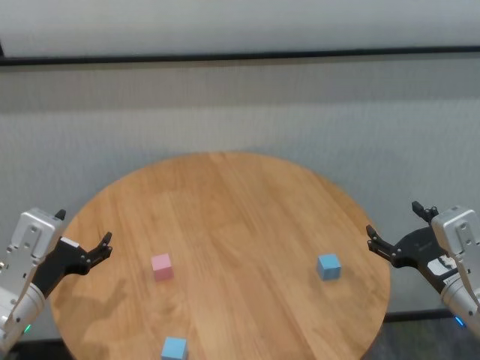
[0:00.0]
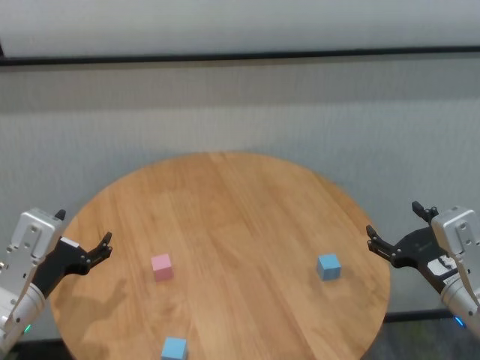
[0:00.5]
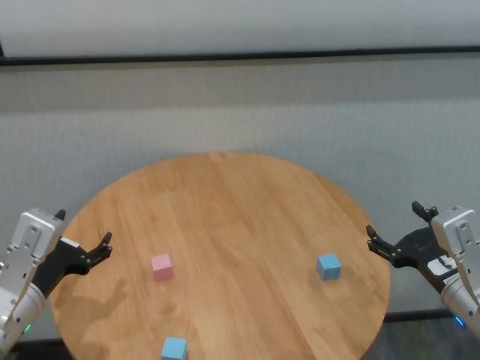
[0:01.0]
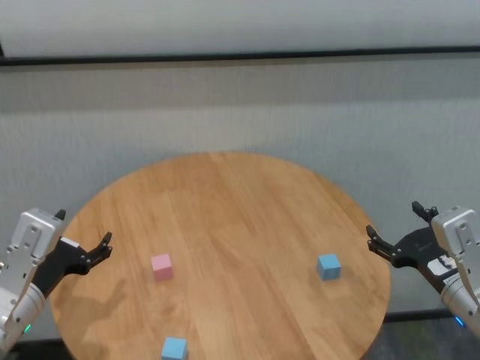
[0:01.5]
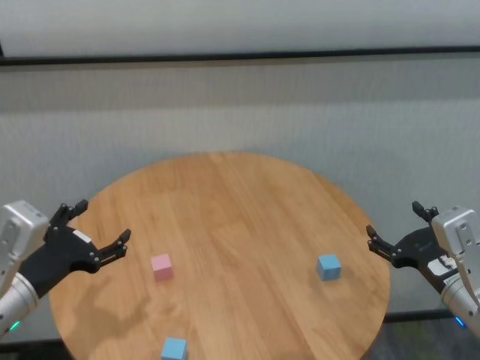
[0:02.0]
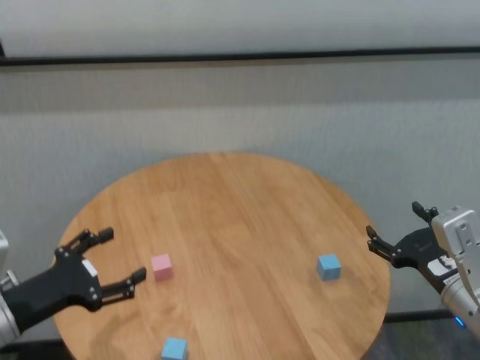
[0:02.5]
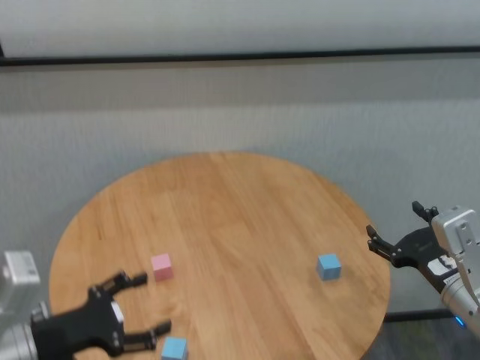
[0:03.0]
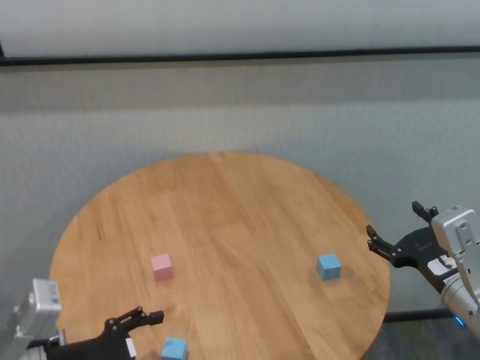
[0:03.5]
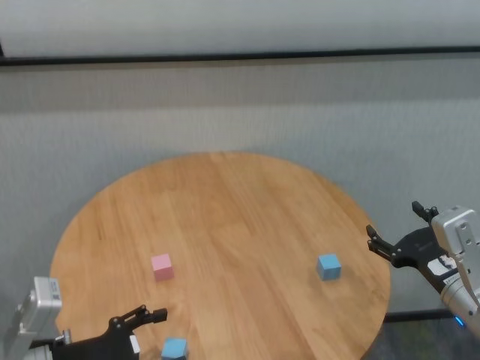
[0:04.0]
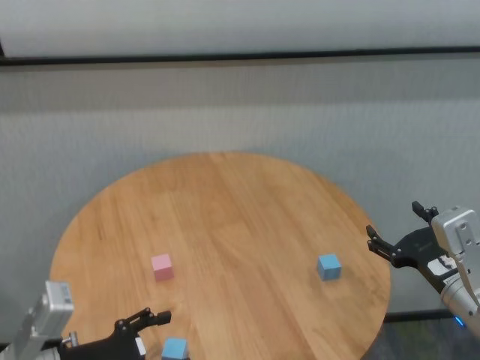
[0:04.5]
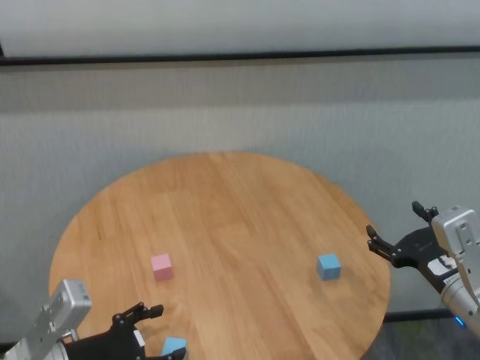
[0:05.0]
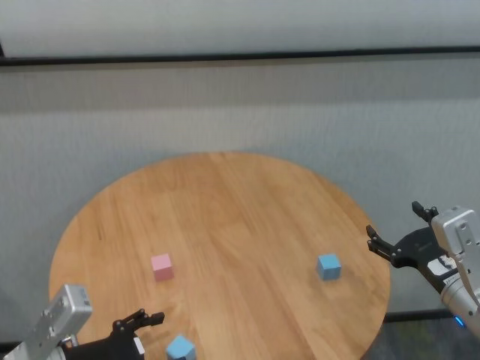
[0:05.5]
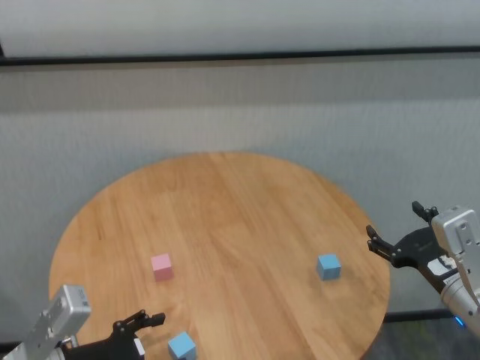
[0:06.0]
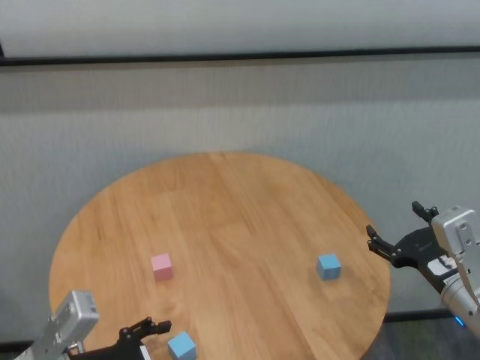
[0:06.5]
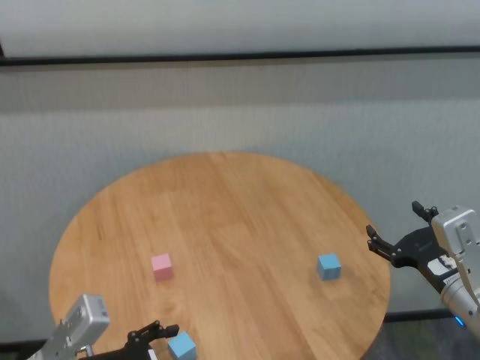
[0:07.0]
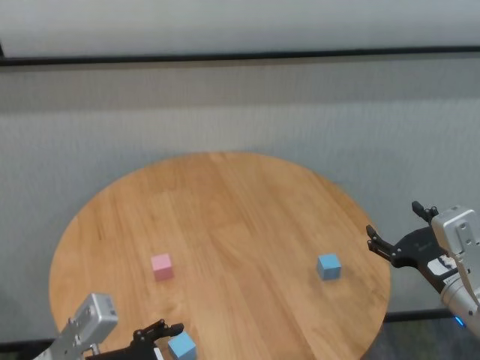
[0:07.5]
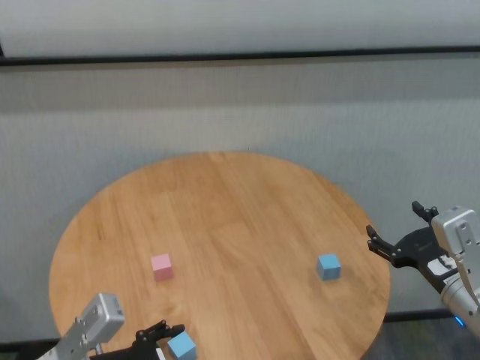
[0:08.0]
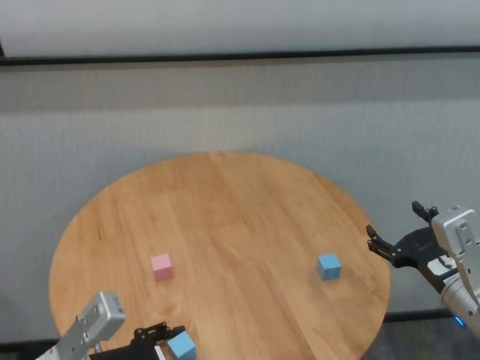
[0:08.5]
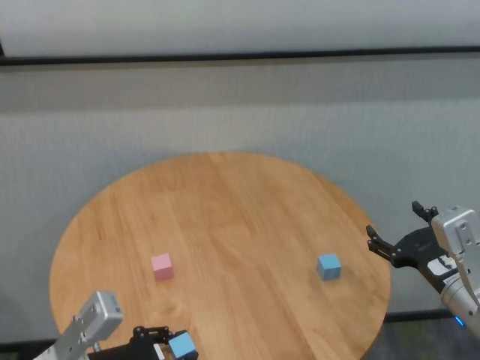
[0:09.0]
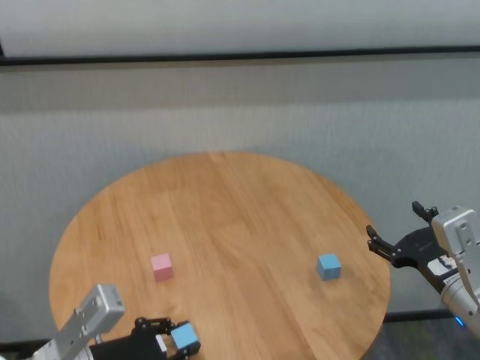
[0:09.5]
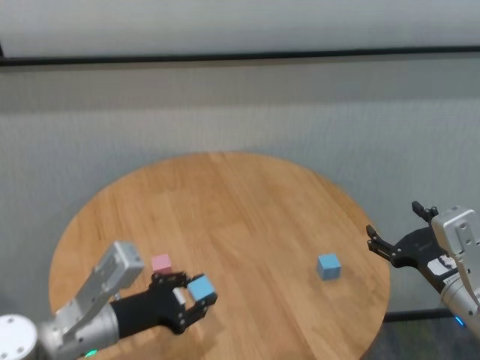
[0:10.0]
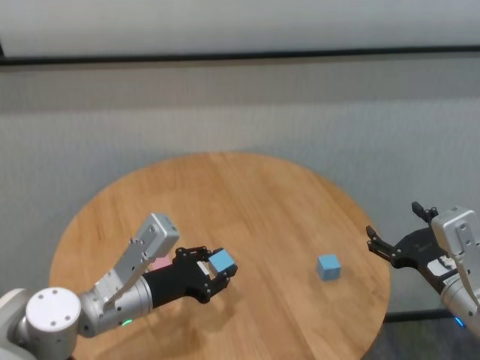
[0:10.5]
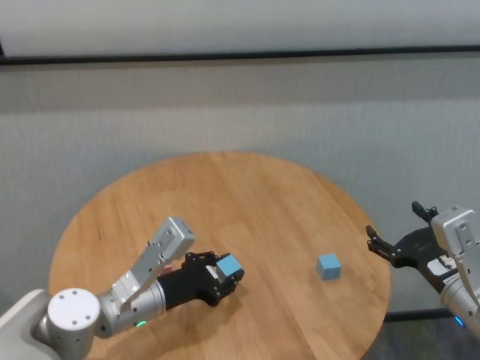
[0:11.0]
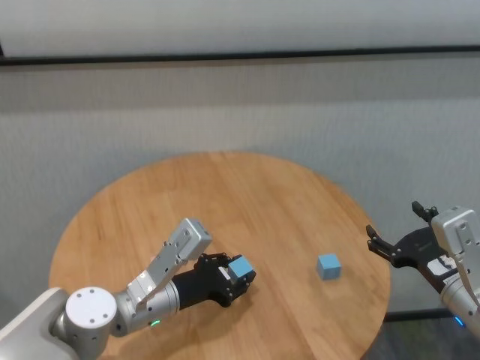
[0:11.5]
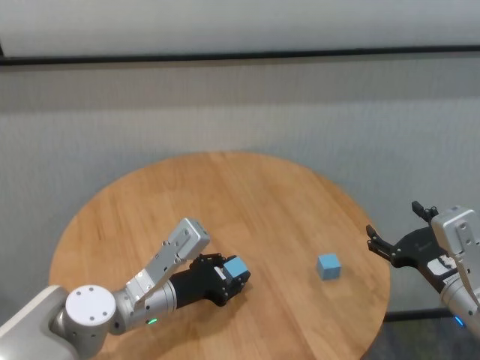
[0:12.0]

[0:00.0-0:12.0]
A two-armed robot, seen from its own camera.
Task of the whole recording: stack building blocks on the table.
Step, 0:00.0 to 0:09.0: Grasp the blue building block with left gripper.

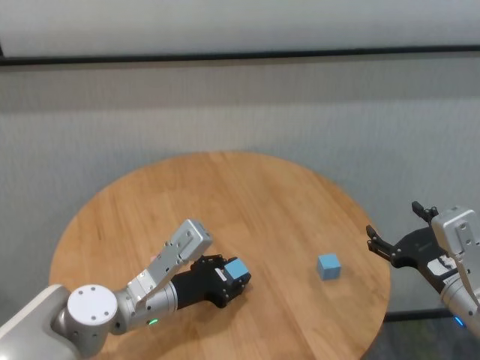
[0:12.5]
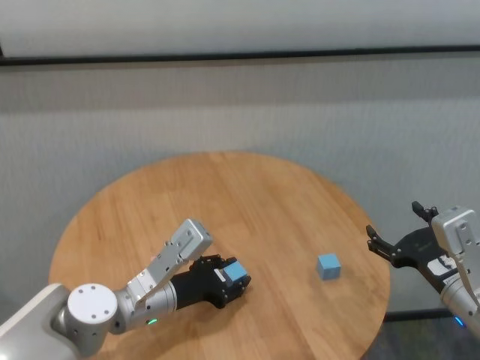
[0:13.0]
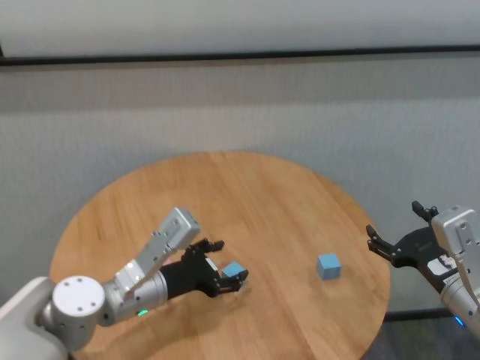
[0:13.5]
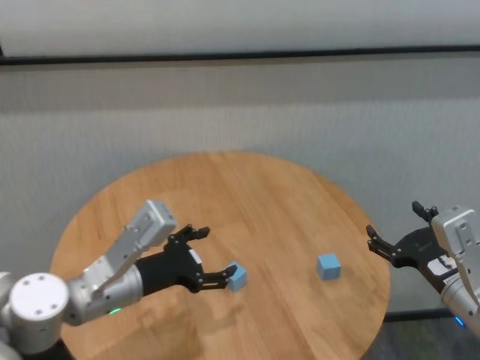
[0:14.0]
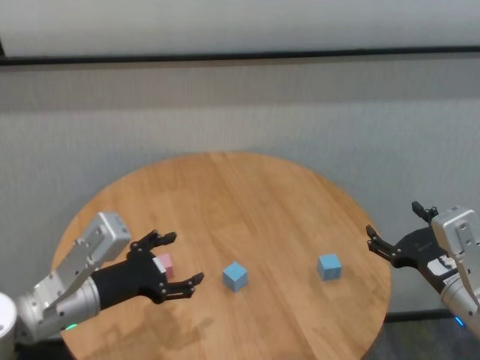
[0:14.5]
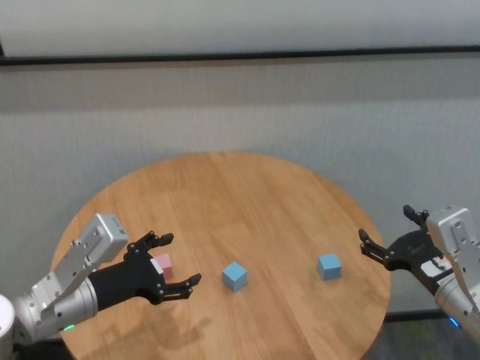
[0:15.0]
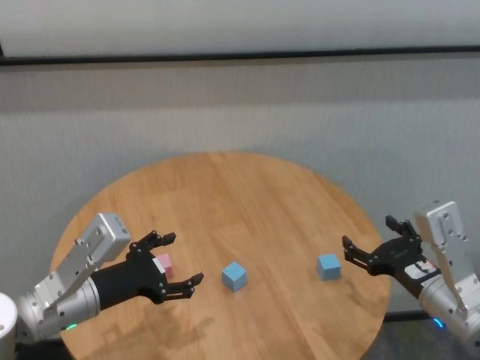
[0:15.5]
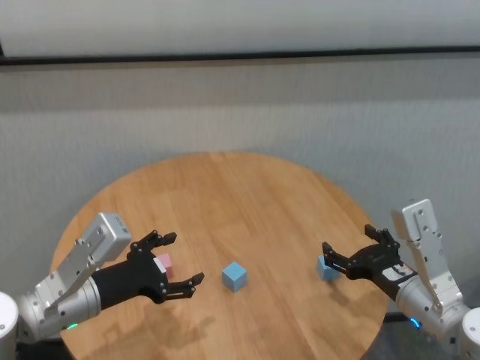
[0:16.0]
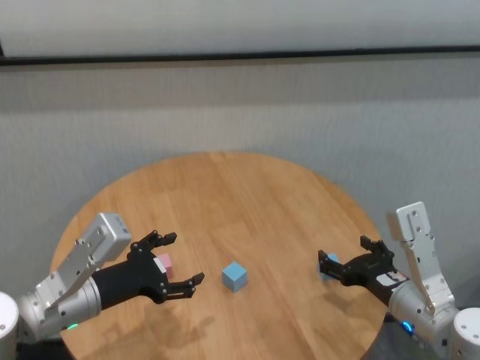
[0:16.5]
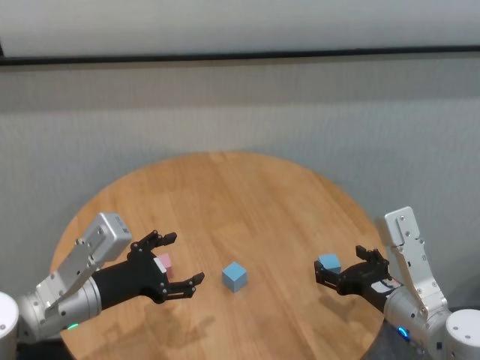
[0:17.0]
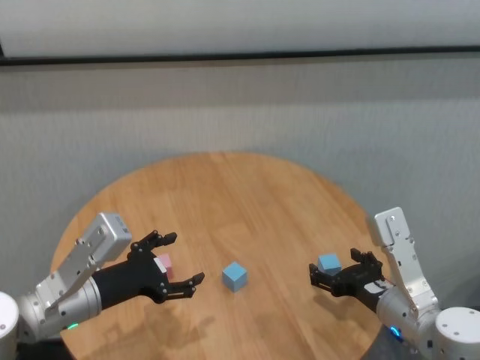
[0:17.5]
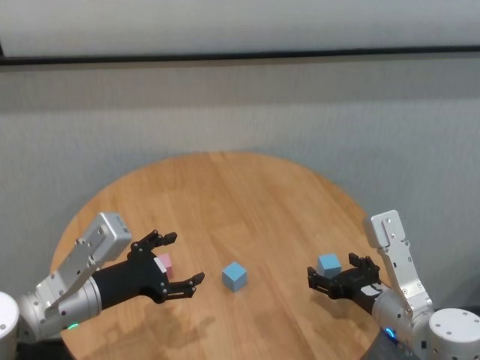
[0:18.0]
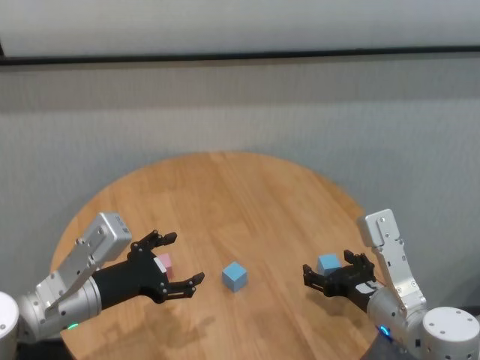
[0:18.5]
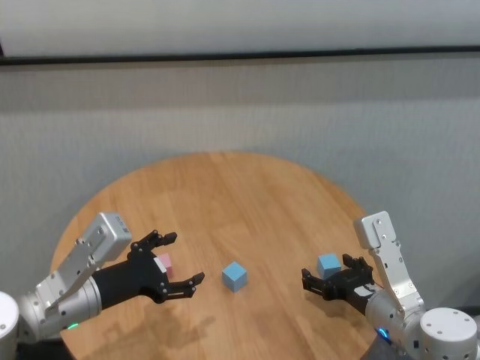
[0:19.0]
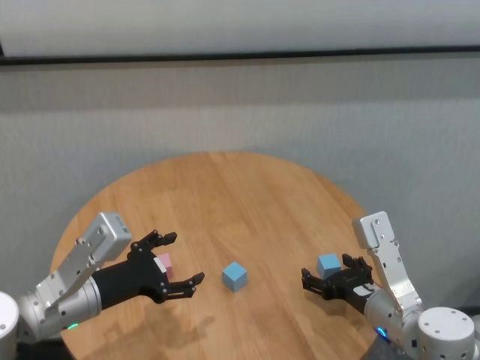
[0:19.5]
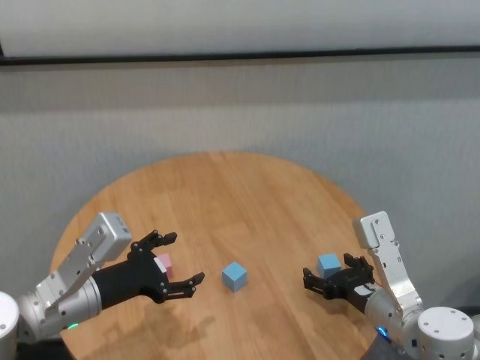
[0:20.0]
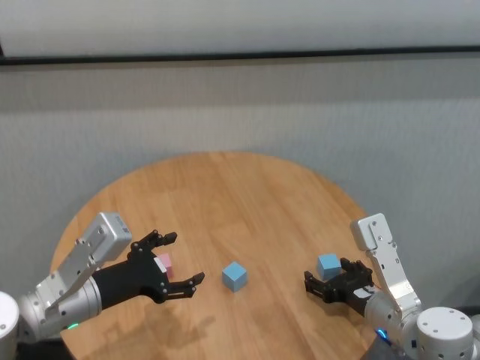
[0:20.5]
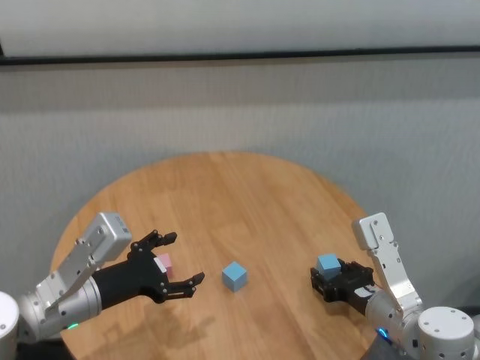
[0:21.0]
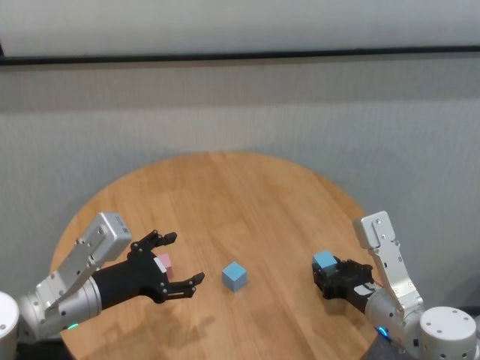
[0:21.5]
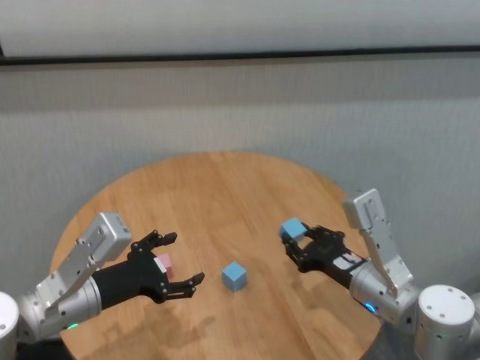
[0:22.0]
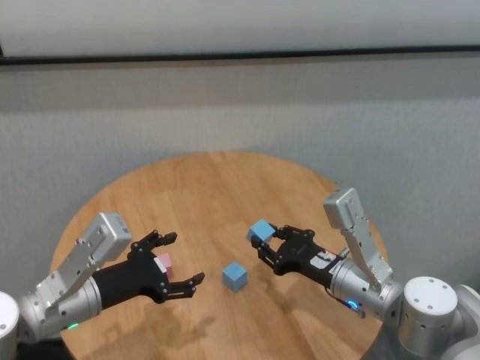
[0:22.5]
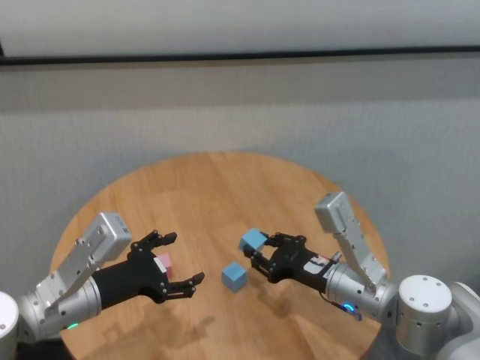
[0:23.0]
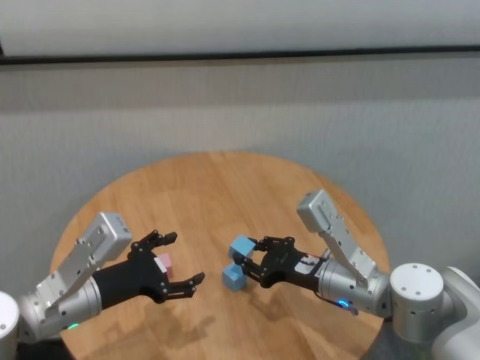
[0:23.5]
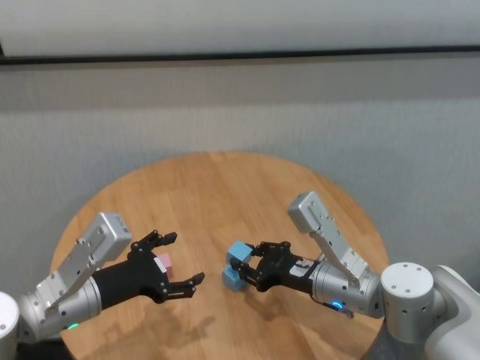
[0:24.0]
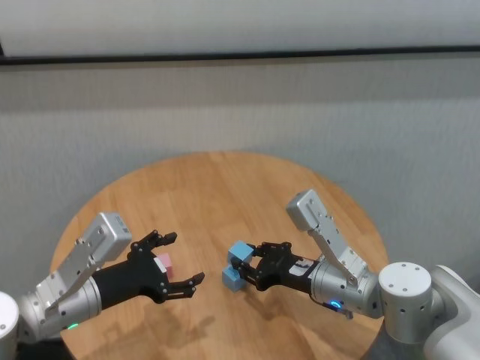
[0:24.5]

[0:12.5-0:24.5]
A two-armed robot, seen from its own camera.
Task of the whole recording: stack building blocks on the table.
Step, 0:13.5 to 0:21.0: Grasp the blue building block with right gripper.

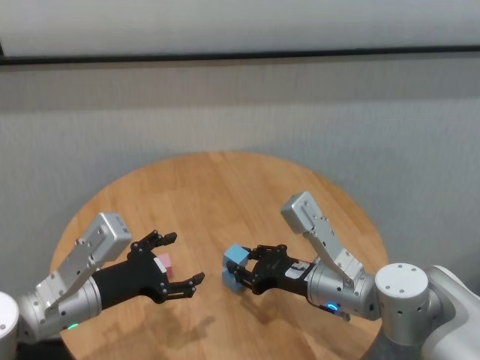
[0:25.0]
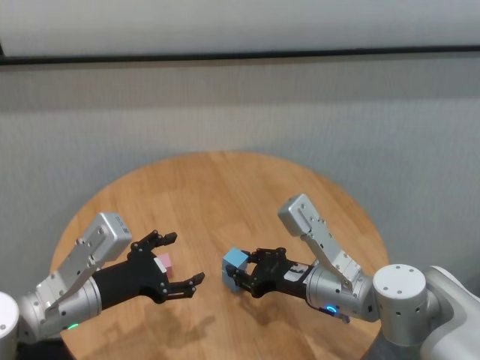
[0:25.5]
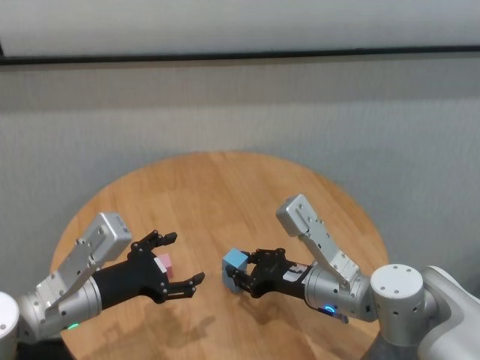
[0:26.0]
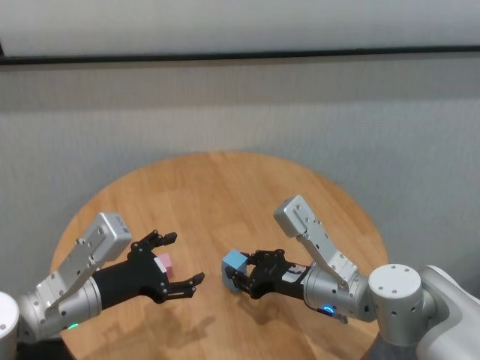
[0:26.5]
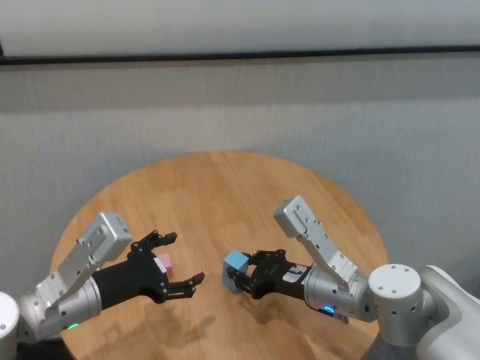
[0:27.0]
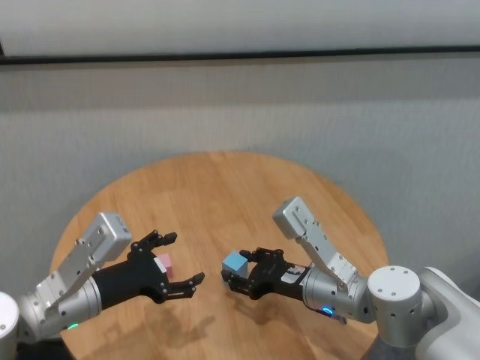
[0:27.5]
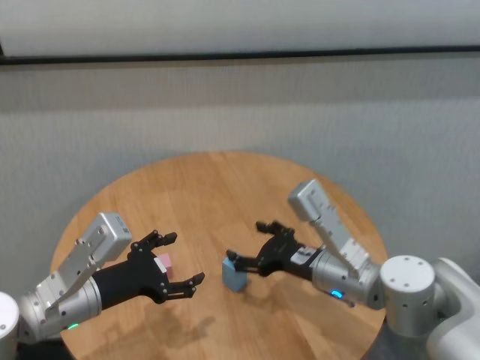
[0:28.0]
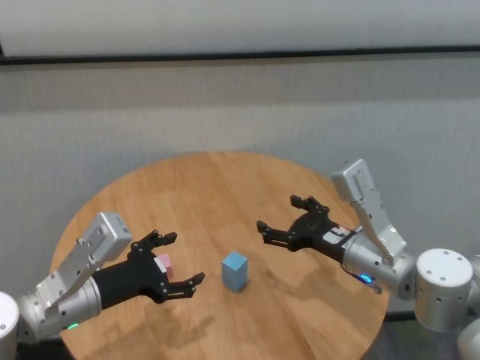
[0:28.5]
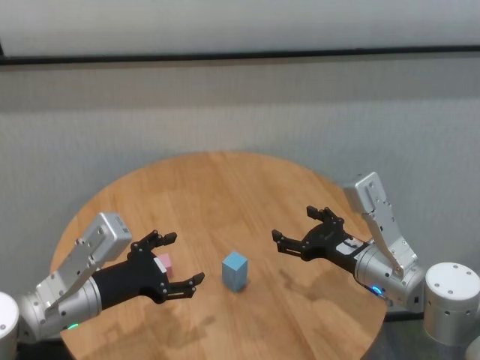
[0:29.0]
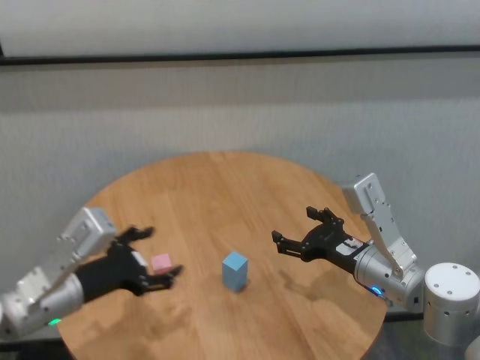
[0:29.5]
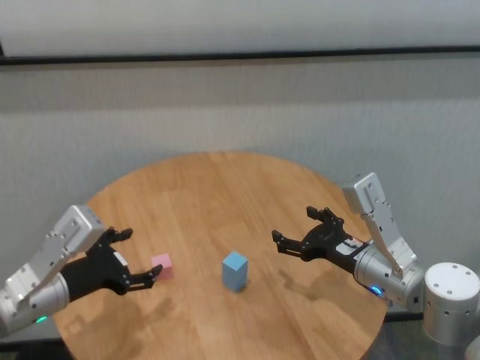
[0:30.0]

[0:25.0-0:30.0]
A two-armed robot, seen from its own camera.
Task of the whole recording: stack building blocks on the table.
Step, 0:25.0 to 0:27.5: Place the blue building block on the blue building blocks with right gripper.
